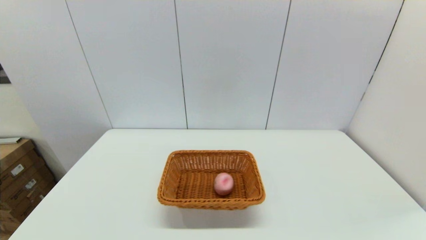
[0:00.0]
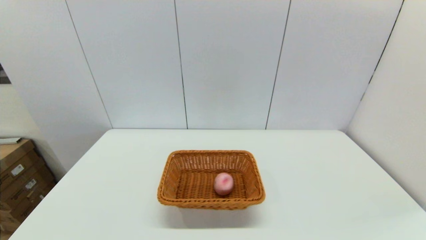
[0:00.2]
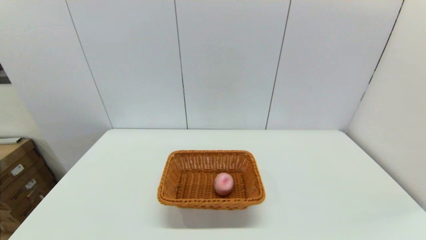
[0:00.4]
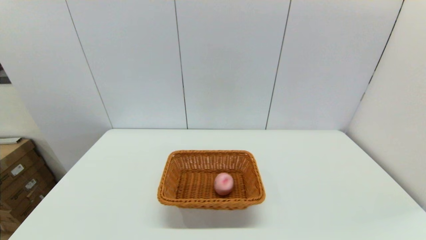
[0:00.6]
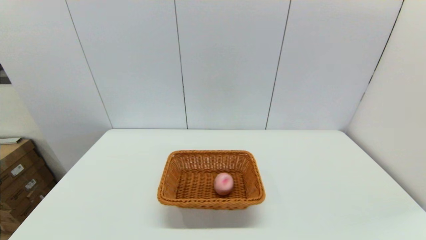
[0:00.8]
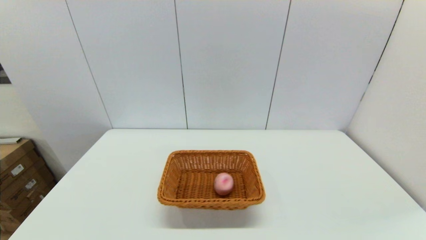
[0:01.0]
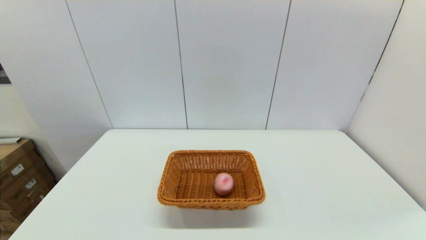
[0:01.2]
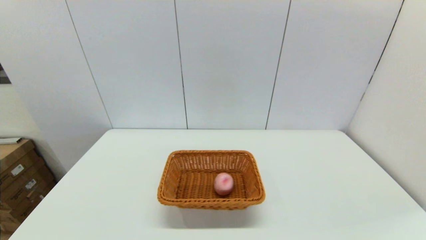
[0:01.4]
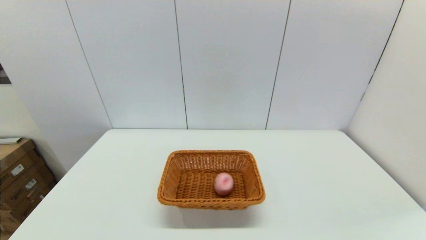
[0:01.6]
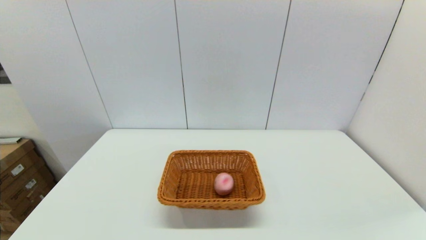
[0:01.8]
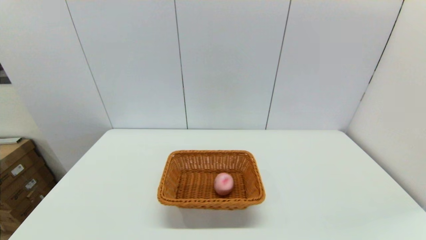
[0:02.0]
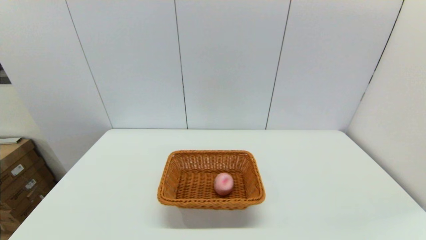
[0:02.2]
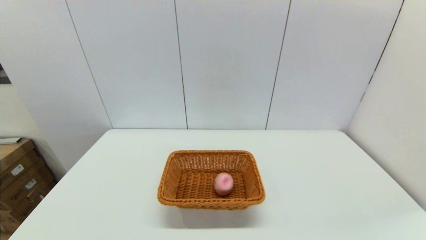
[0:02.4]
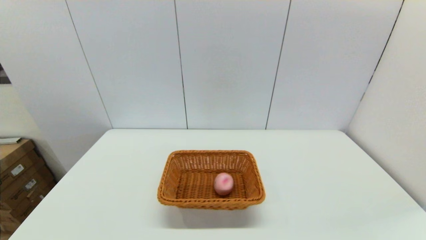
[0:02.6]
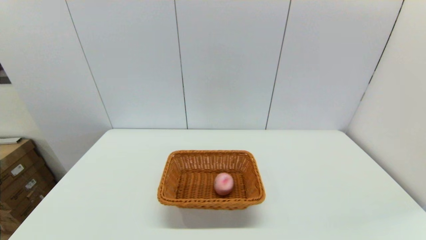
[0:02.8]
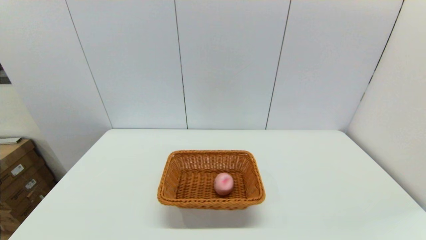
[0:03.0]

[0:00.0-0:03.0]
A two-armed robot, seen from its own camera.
0:01.6 to 0:03.0: Both grippers stay put.
